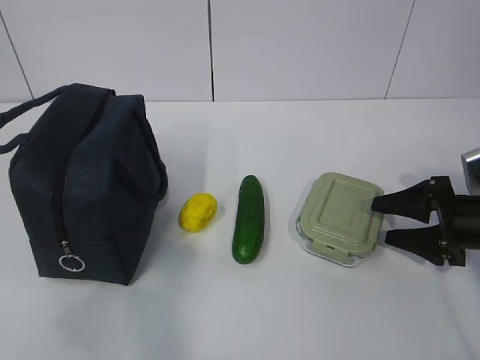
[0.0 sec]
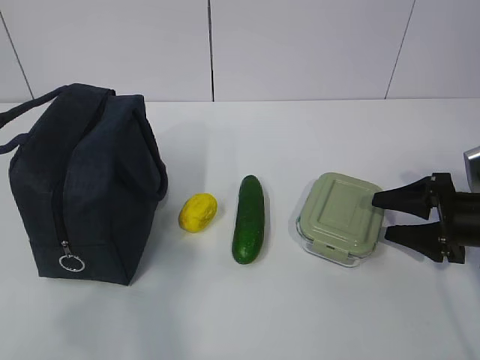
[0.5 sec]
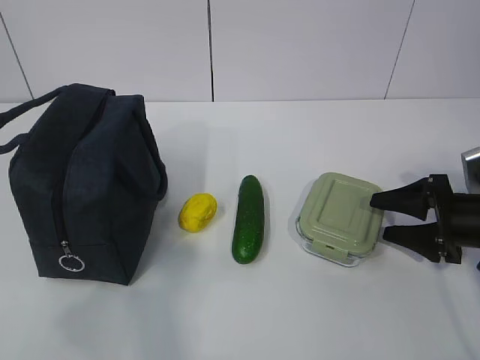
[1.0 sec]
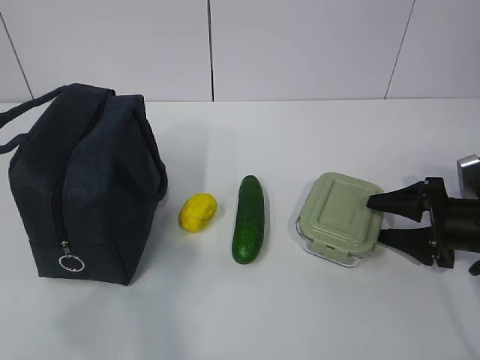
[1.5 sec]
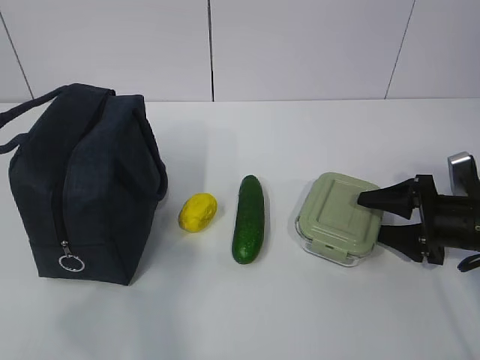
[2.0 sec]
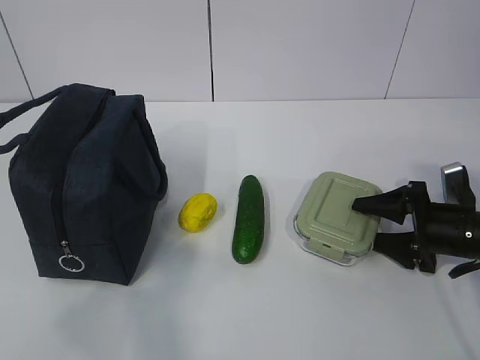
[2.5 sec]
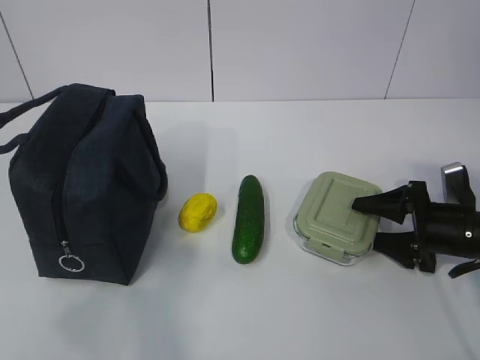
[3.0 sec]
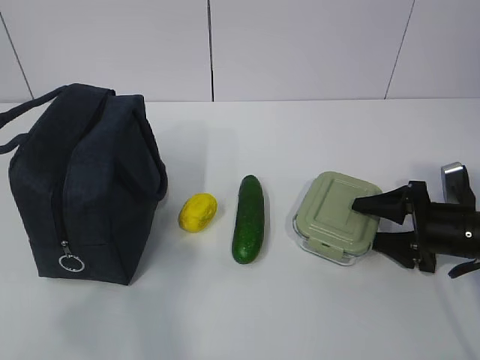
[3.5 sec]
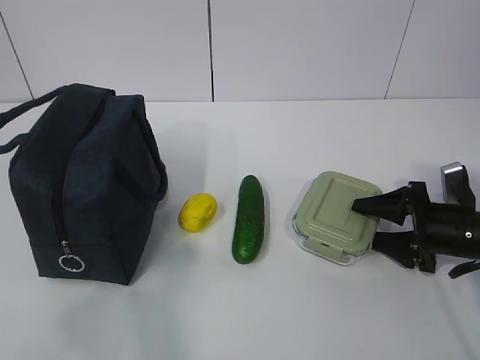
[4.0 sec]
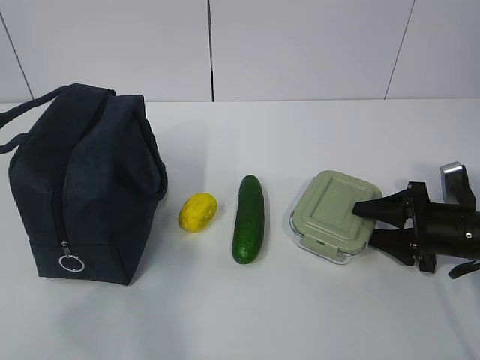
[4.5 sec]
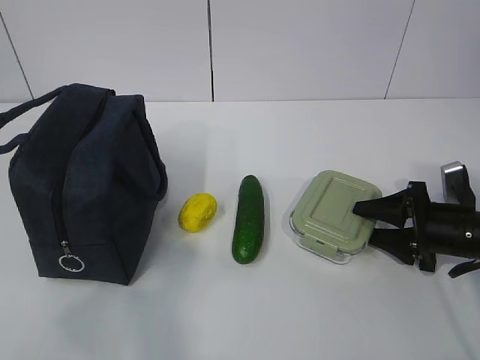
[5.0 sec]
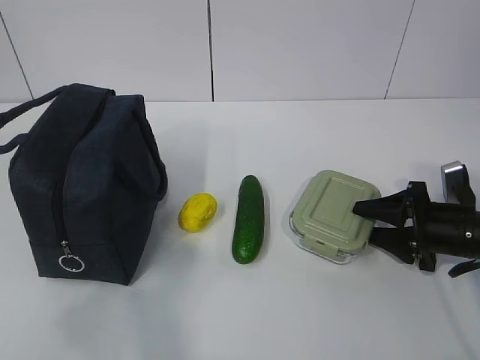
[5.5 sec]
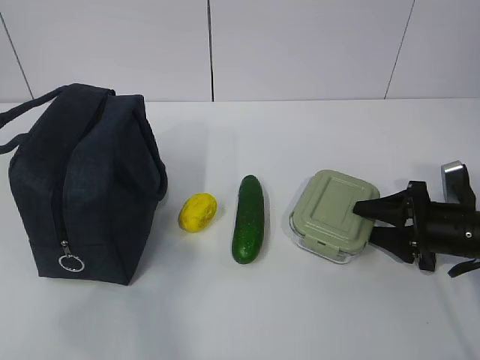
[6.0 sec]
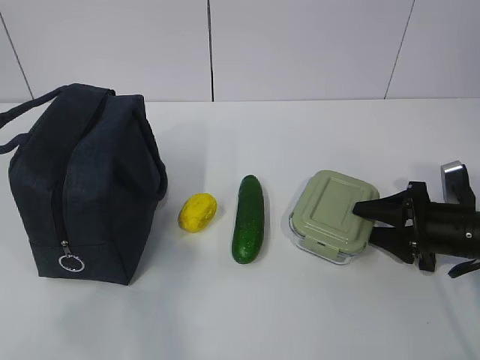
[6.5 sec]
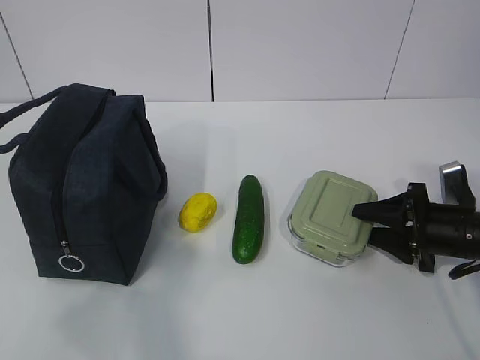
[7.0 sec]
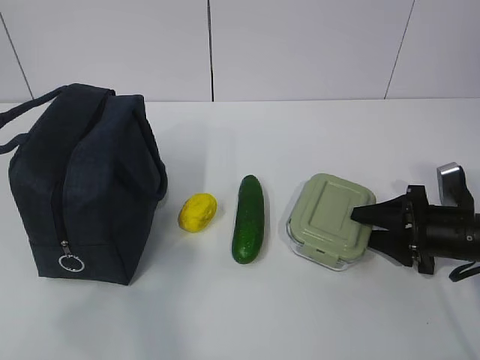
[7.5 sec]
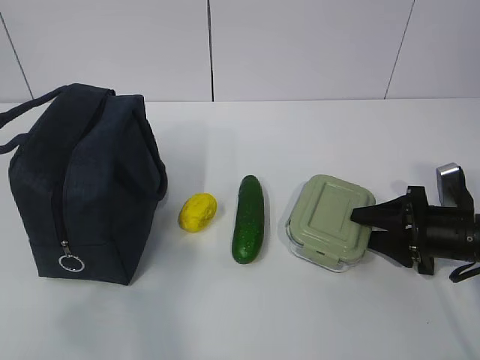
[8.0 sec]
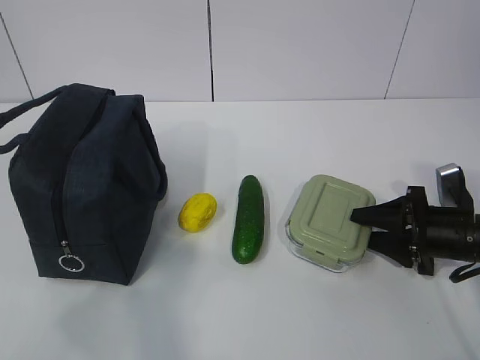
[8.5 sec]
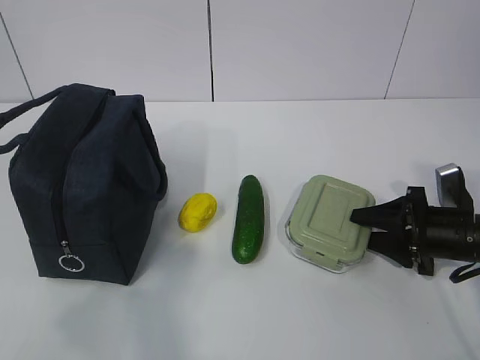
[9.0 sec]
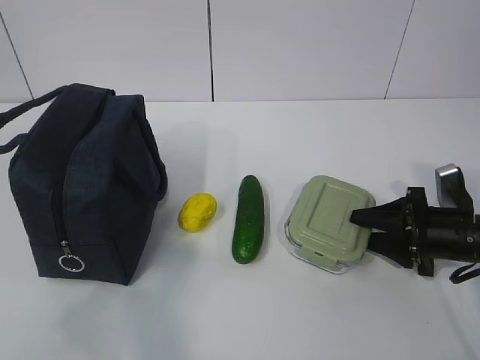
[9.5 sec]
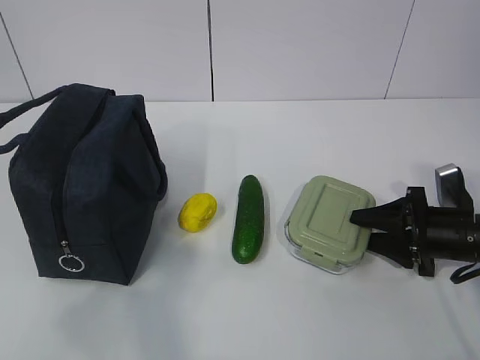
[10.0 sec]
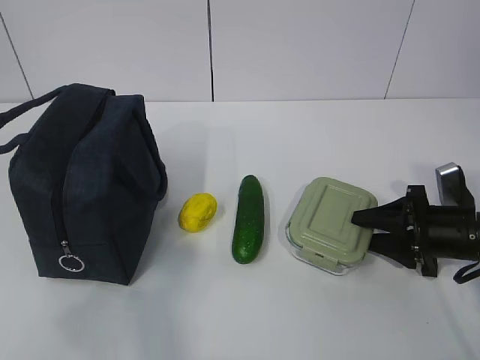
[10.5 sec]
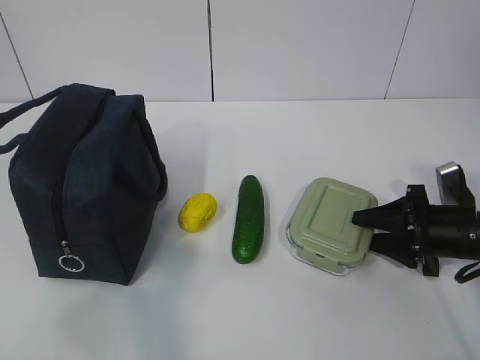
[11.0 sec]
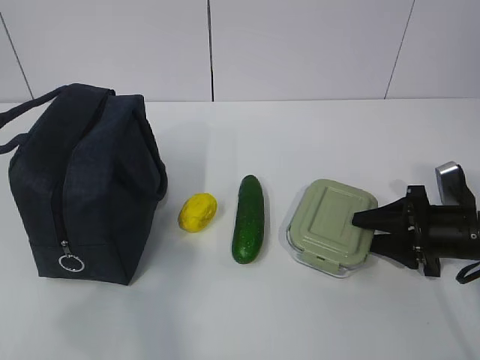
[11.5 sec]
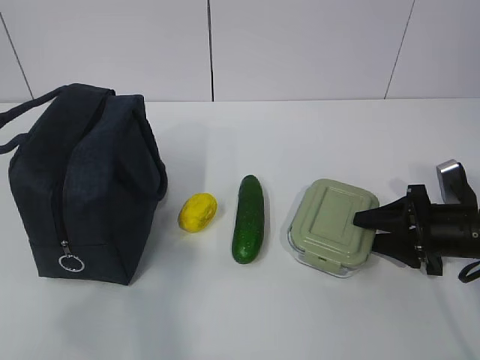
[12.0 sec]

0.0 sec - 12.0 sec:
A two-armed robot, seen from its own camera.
Step, 0.0 sec - 9.0 sec: Grab the lunch box with your right hand.
0.0 sec - 4.0 sec: There are only small adjustments of the grippers.
4.0 sec - 10.0 sec: Neither gripper changes place.
10.0 sec - 12.0 sec: Neither gripper changes place.

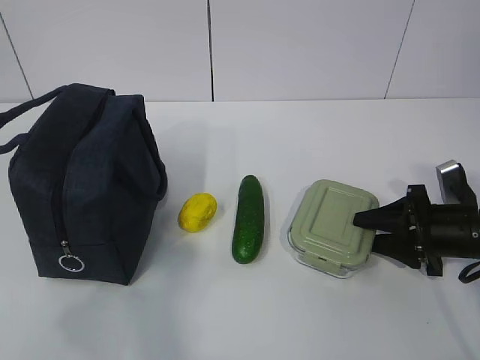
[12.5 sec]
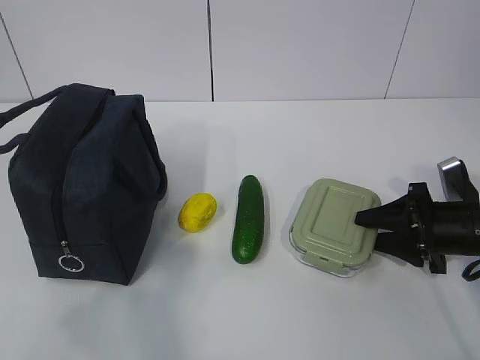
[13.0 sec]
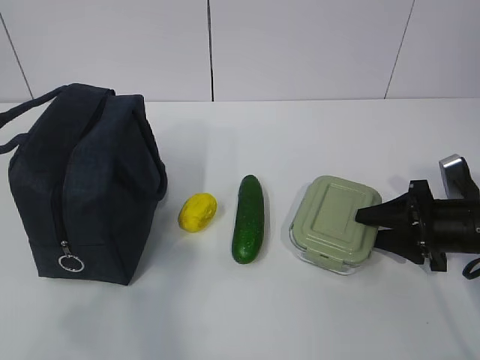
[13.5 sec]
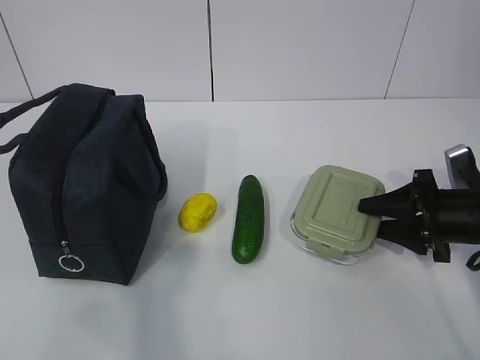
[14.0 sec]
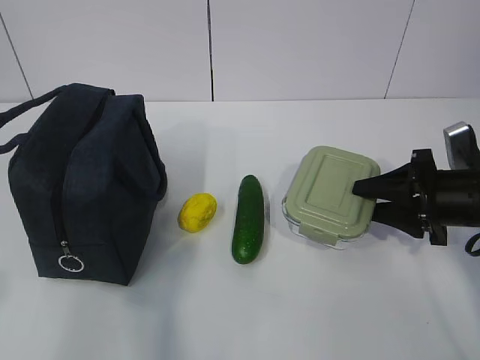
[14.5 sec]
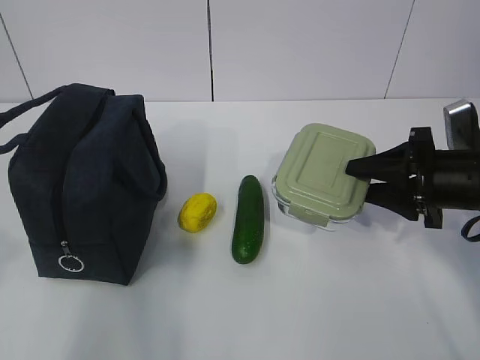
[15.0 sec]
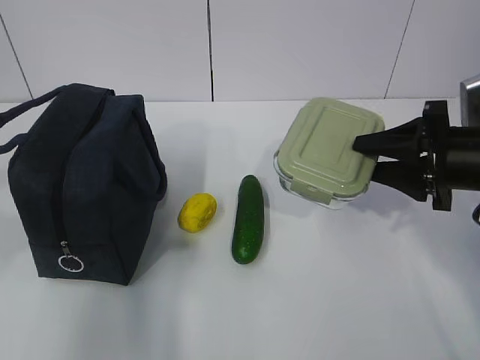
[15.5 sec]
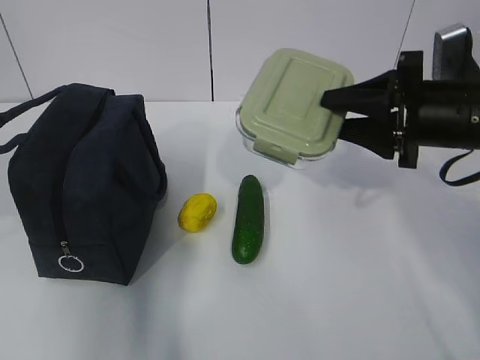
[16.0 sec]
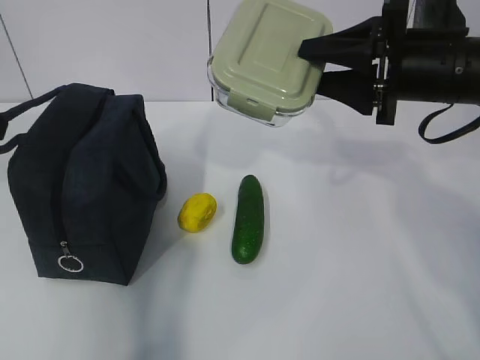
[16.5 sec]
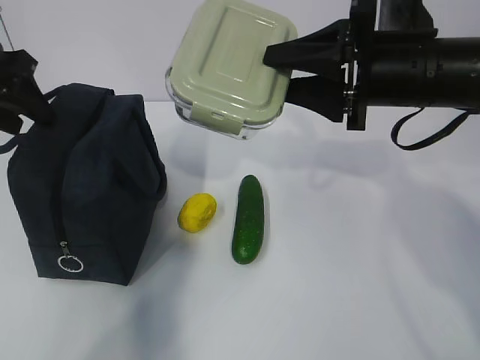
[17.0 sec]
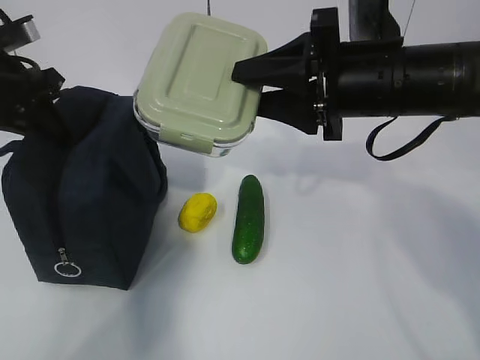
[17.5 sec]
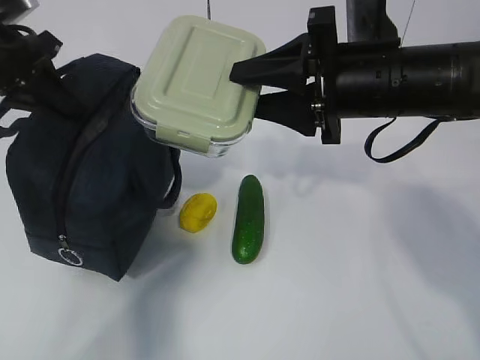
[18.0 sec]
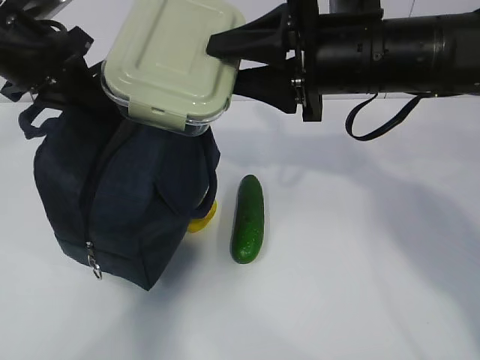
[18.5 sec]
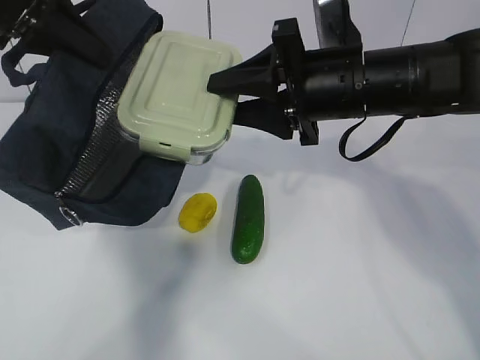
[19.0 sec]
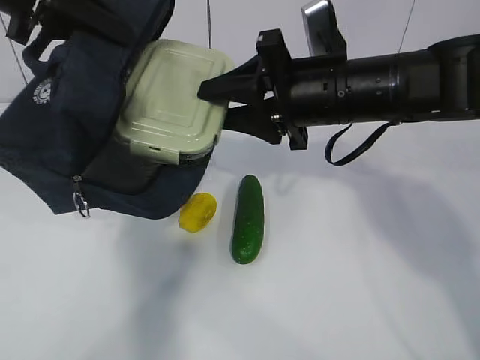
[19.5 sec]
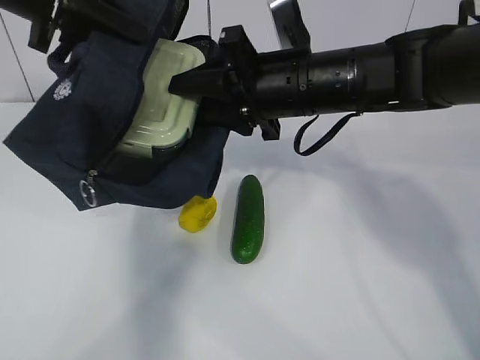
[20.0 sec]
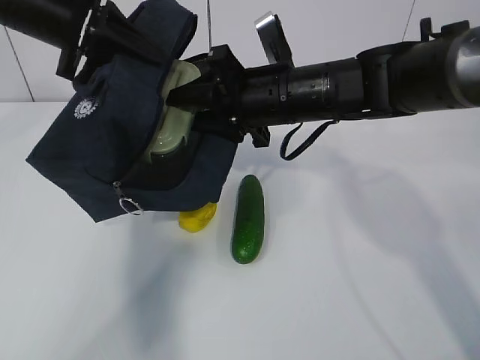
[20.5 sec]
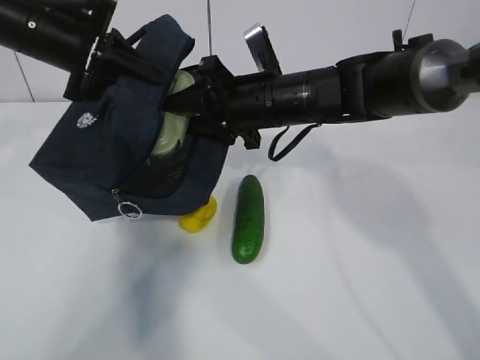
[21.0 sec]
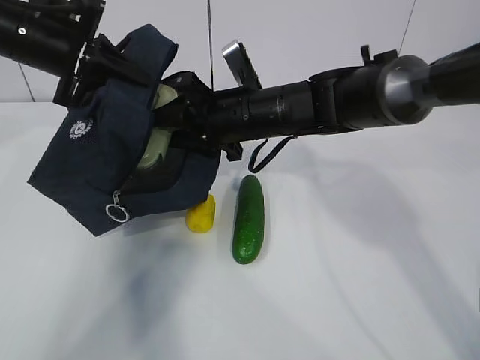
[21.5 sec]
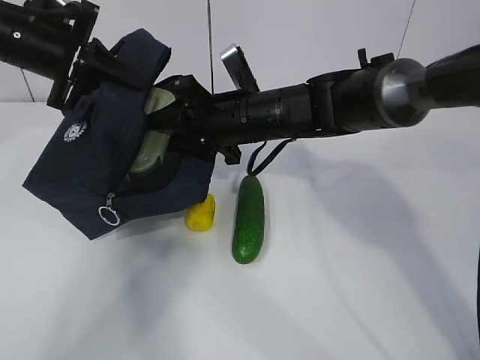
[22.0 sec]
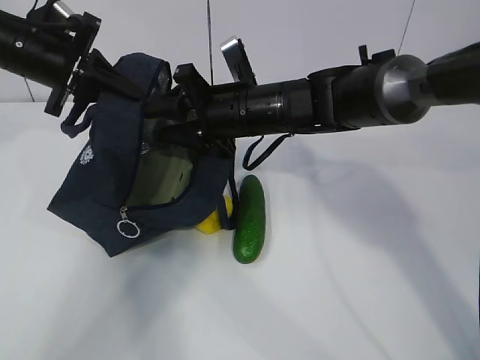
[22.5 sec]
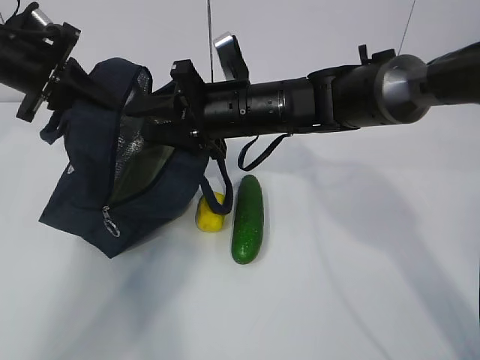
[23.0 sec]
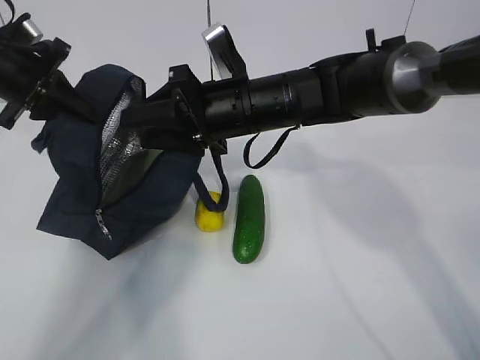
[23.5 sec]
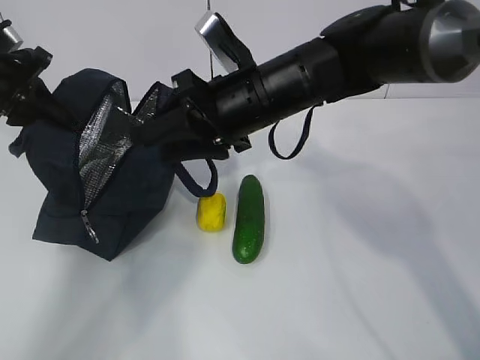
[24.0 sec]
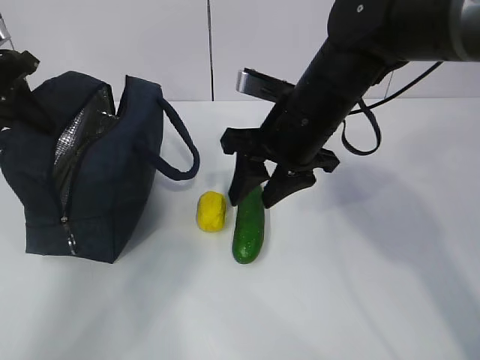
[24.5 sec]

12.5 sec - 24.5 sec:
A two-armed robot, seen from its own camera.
Step, 14.5 sec - 17.5 sec: Place it into the bag with your right hand.
Step, 18.0 sec - 21.5 sec: Grab the cucumber with your right hand.
Step, 22.0 sec - 24.0 sec: Place it into the bag with your right hand.
12.5 sec - 14.5 sec: The left gripper shifts about 5 cm forward; the right gripper is displaced upward by some 5 cm.
14.5 sec - 16.5 sec: The left gripper shifts some 20 cm forward; the right gripper moves upward and to the left, some 15 cm.
16.5 sec - 18.5 sec: The left gripper shifts some 10 cm forward and to the right, and closes its fingers, while the right gripper moves to the left, approximately 10 cm.
18.5 sec - 20.5 sec: The right gripper is displaced downward, forward and to the left by roughly 10 cm.
20.5 sec - 22.5 sec: The right gripper changes place by roughly 5 cm; the left gripper is displaced downward by approximately 5 cm.
22.5 sec - 24.5 sec: The right gripper is displaced backward by roughly 5 cm. Meanwhile the left gripper shifts approximately 10 cm to the left.

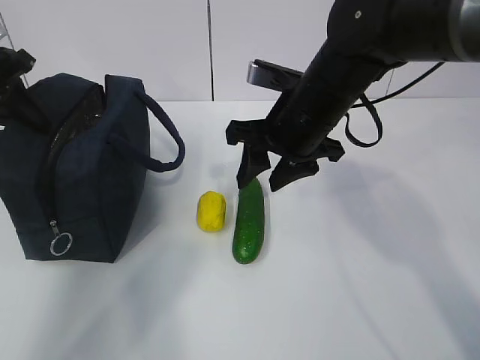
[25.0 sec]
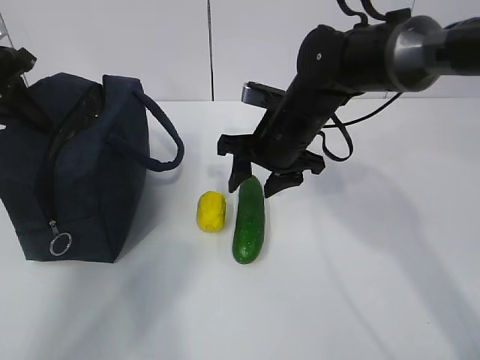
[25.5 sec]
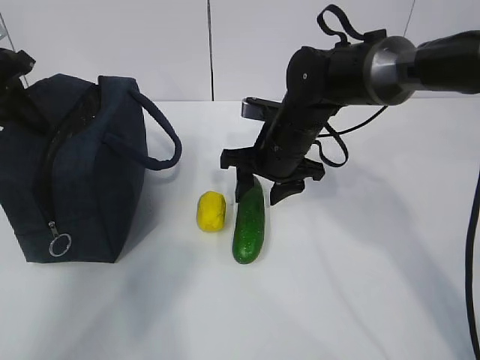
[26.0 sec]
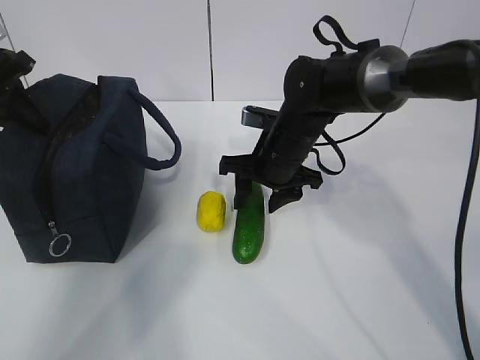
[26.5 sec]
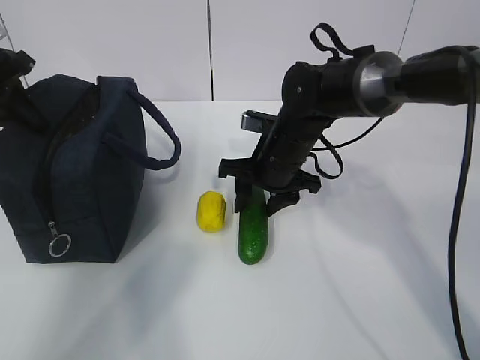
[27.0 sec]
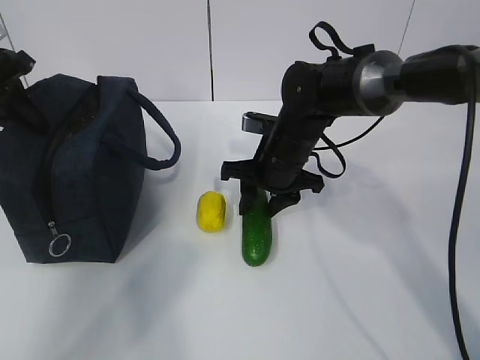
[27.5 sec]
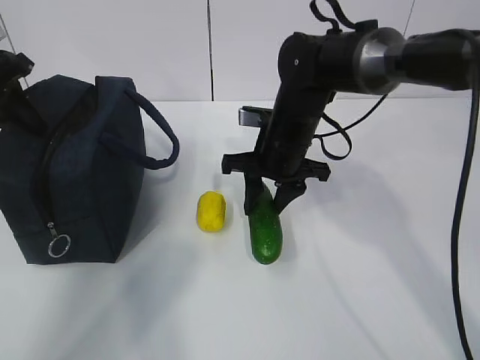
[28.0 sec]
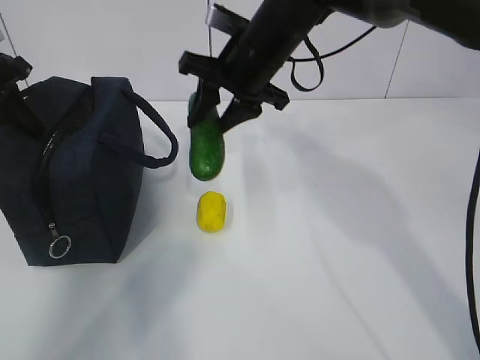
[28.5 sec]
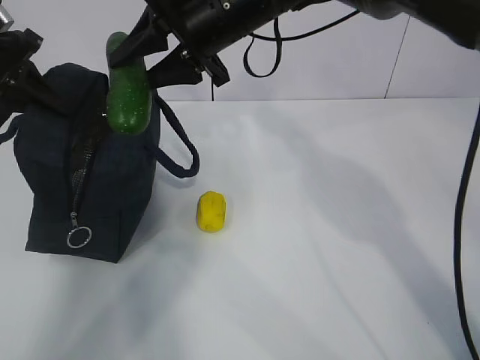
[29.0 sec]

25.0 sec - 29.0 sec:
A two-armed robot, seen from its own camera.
Step, 25.0 sec - 27.5 sec: Grab the lemon with your right hand.
25.0 sec - 27.0 sec: The right gripper shifts some 10 cm downward and forward.
27.0 sec - 29.0 sec: The right gripper is displaced upward by some 15 cm.
